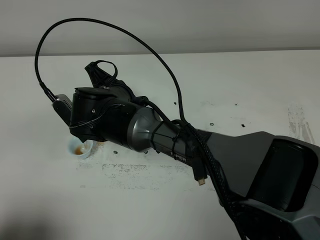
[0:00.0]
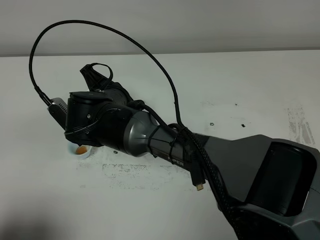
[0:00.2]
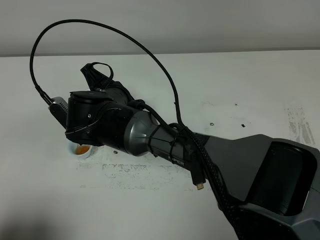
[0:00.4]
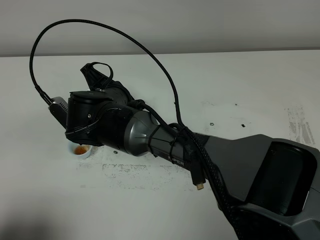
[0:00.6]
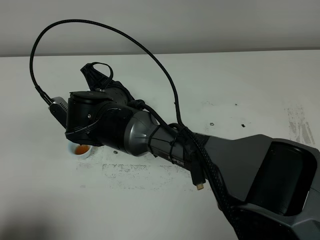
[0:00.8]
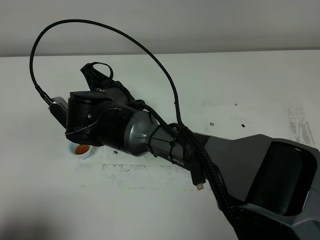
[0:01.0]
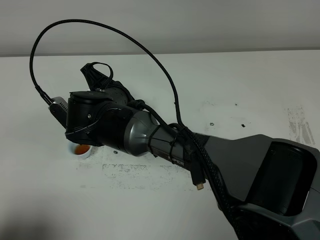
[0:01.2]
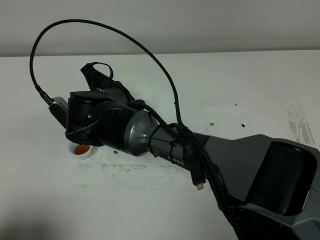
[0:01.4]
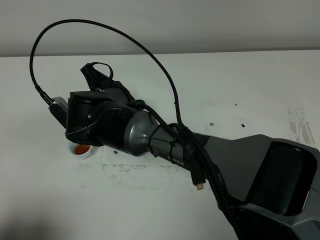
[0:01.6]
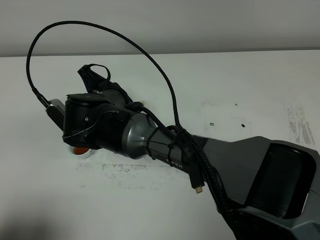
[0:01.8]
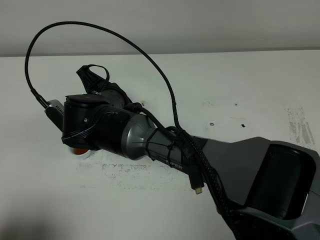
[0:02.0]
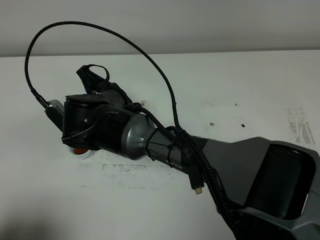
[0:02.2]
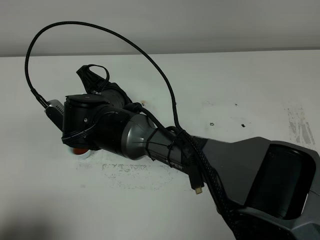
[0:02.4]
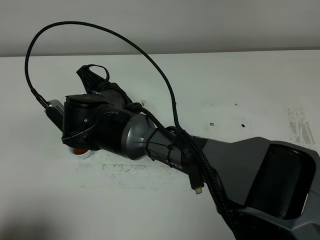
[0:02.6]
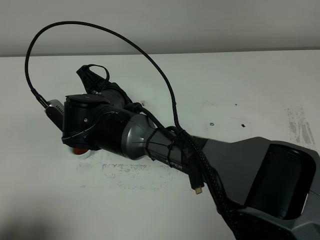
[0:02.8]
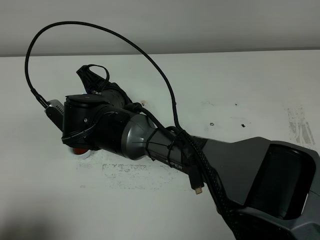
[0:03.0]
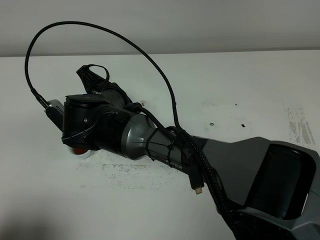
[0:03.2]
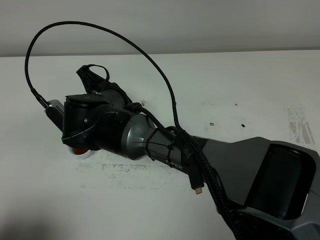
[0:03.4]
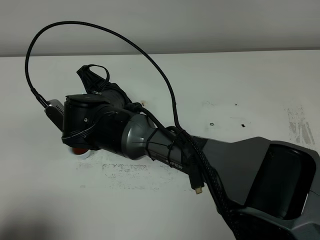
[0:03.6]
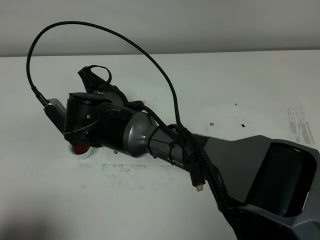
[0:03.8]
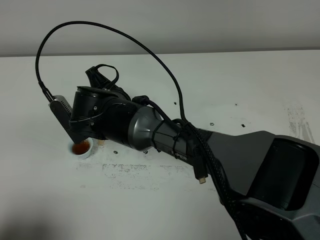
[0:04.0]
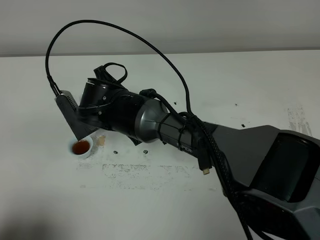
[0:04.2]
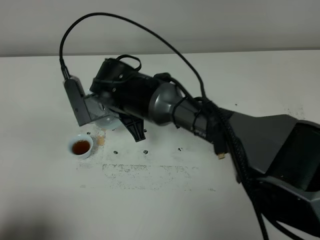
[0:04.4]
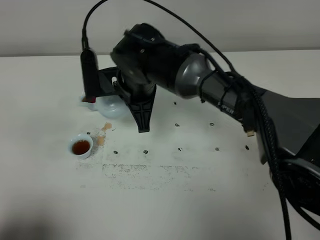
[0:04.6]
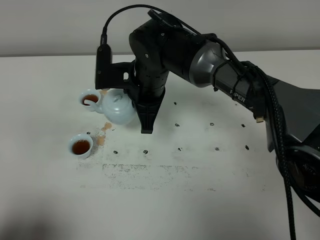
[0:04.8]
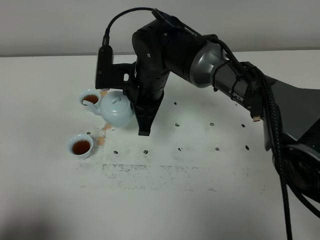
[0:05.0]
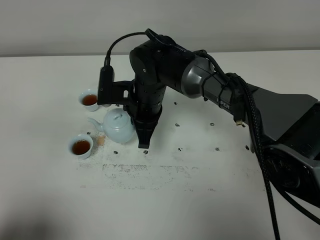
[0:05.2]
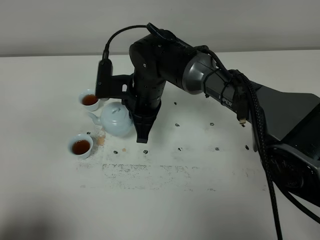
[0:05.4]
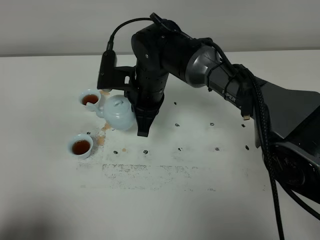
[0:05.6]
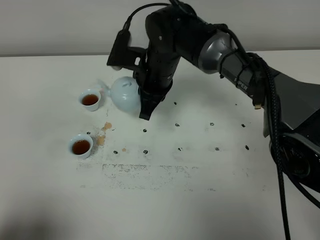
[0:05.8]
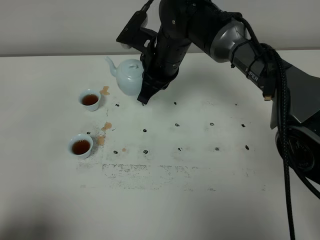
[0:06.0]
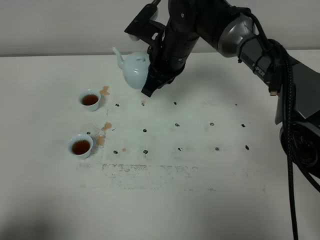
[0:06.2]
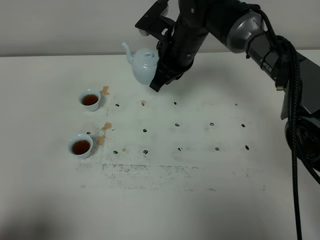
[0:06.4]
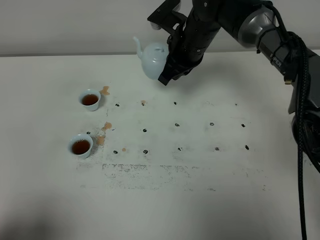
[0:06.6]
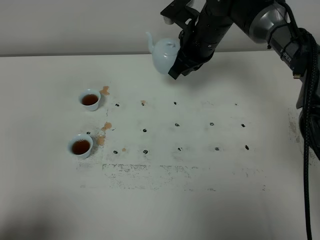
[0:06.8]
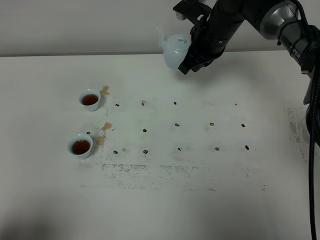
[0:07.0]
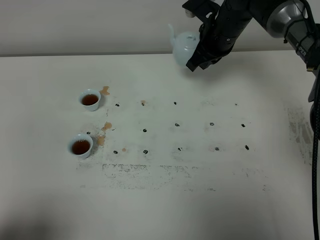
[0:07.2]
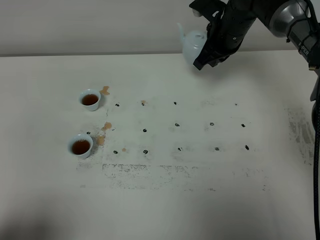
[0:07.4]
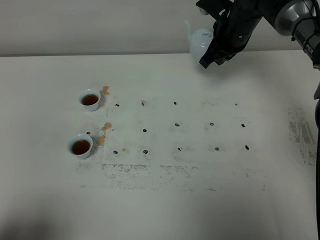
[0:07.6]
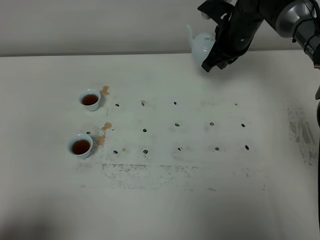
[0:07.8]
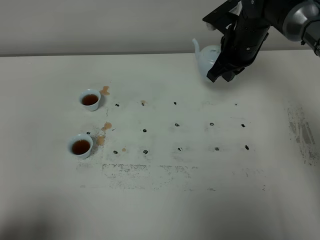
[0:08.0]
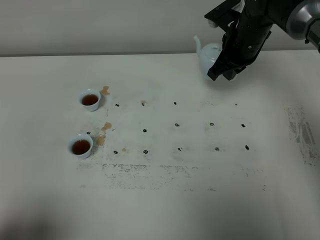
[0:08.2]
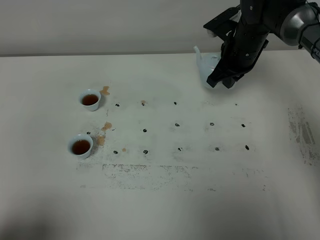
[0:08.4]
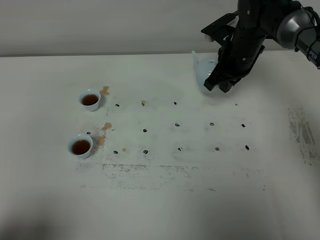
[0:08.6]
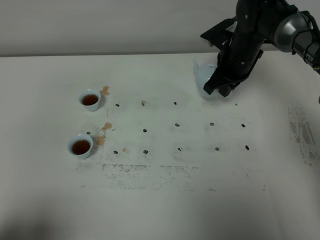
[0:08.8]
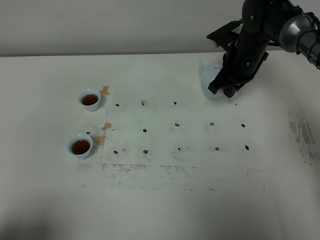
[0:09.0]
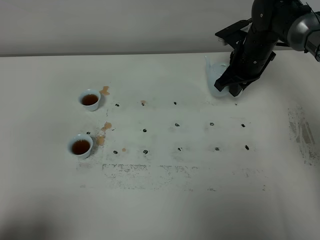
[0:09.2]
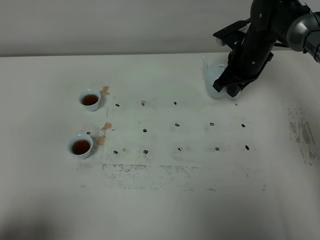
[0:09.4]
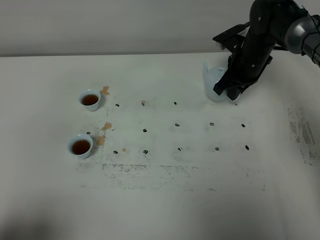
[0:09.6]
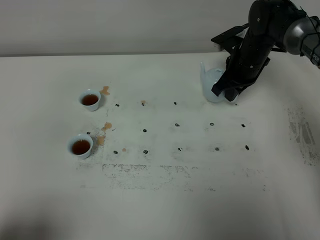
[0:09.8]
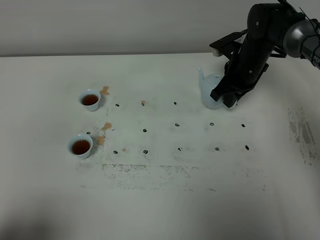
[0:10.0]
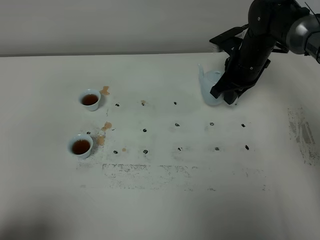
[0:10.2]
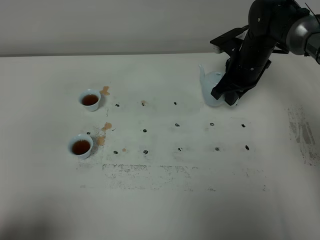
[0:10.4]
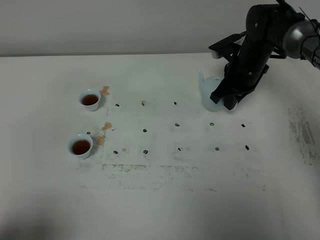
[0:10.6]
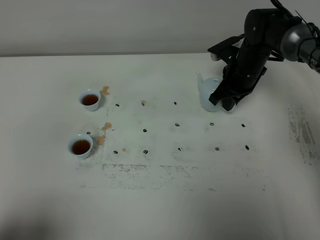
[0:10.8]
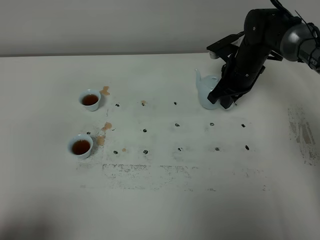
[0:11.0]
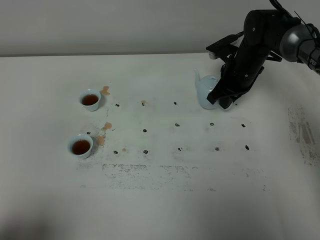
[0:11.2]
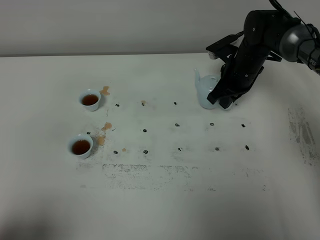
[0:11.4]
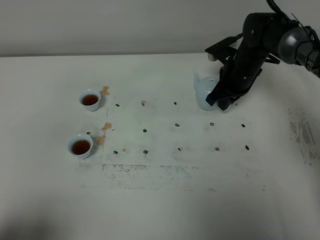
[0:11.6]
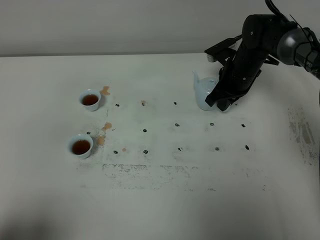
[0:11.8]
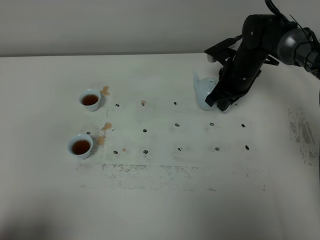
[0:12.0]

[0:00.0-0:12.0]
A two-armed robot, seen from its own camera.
Task of the whole recording: grasp the blue porcelain teapot and pour the tea into the two blue porcelain teacups one by one, put the blue porcelain teapot back in its original place.
Step, 0.0 to 4.6 s: Pour tea into the teacup with the right gripper.
0.0 to 3.0 s: Both grippers stay about where they are.
4.4 to 6.0 s: The right gripper goes roughly 10 cm to the right and forward.
6.0 to 7.6 s: The right gripper shifts about 15 cm to the right and forward.
7.6 to 9.0 s: The right gripper goes about 5 cm downward.
9.0 to 12.0 s: The grippers move only a little.

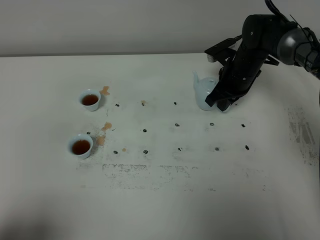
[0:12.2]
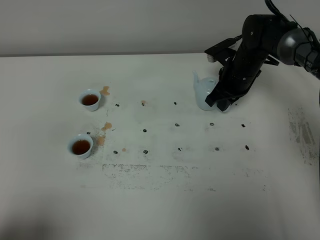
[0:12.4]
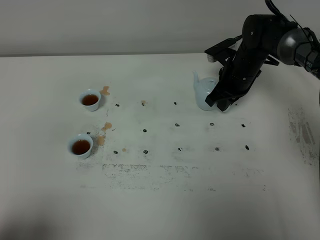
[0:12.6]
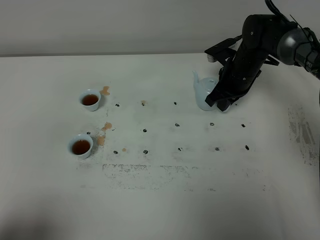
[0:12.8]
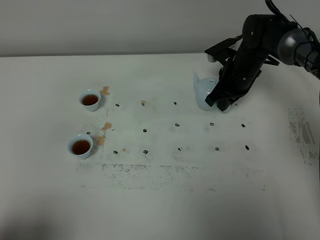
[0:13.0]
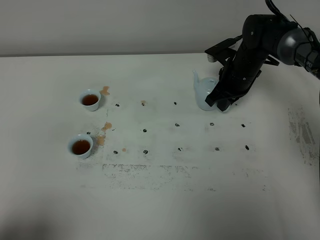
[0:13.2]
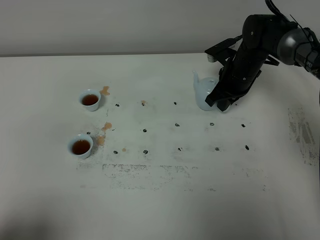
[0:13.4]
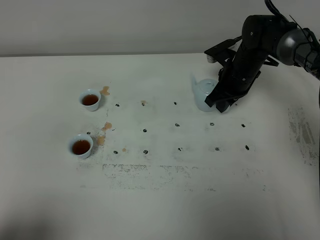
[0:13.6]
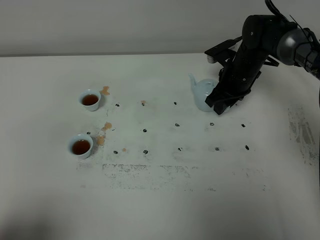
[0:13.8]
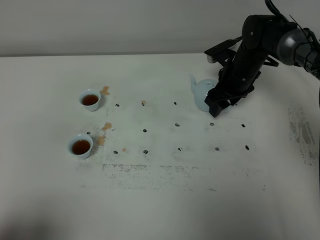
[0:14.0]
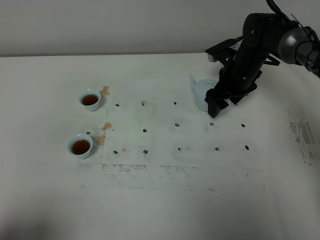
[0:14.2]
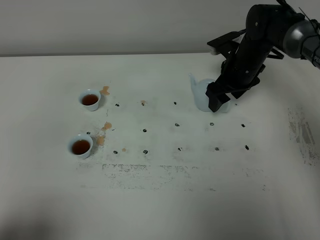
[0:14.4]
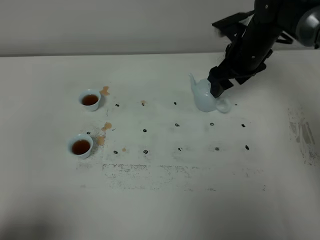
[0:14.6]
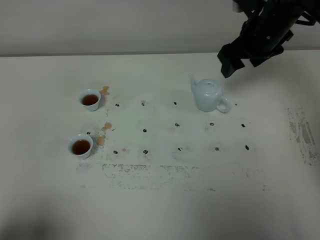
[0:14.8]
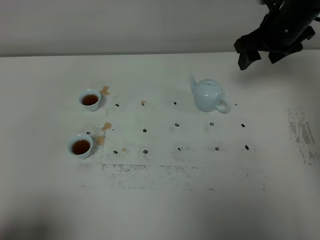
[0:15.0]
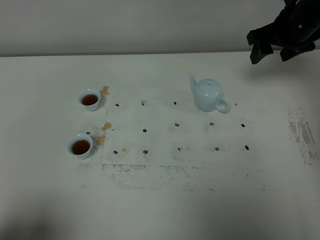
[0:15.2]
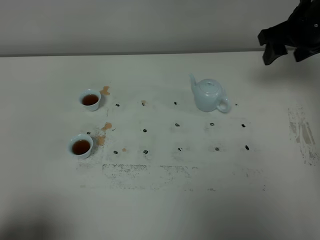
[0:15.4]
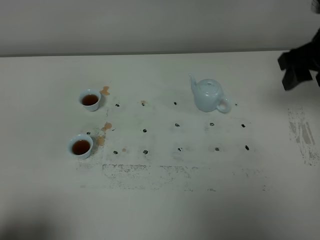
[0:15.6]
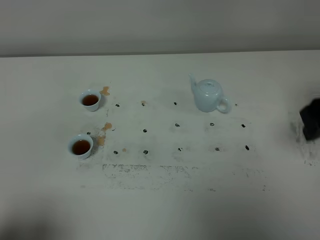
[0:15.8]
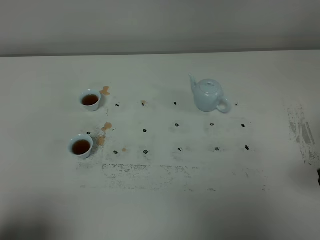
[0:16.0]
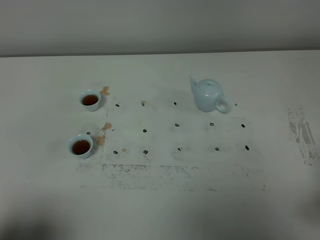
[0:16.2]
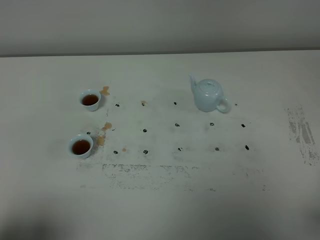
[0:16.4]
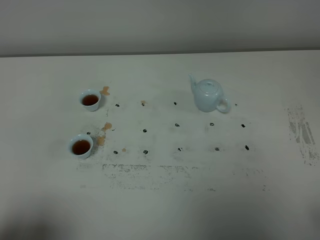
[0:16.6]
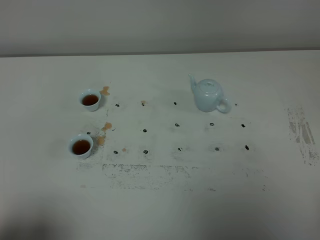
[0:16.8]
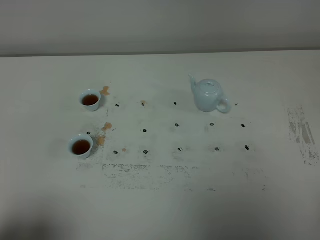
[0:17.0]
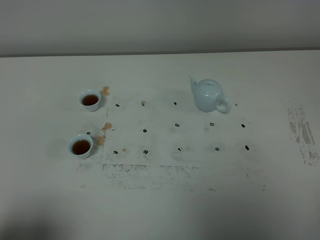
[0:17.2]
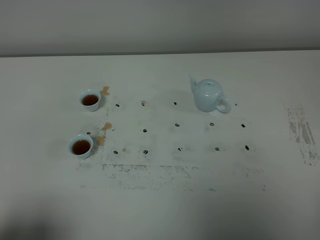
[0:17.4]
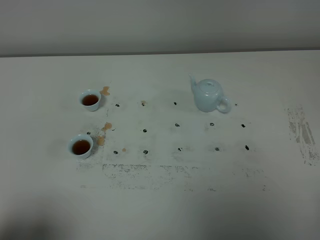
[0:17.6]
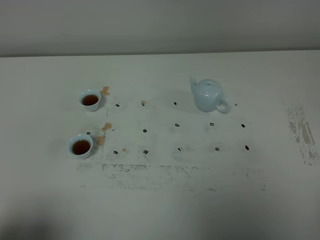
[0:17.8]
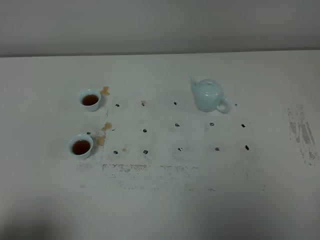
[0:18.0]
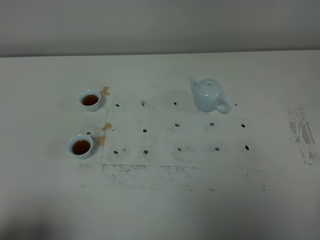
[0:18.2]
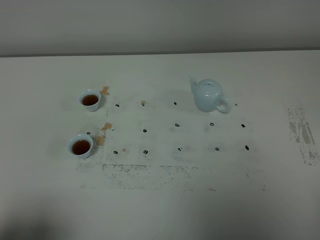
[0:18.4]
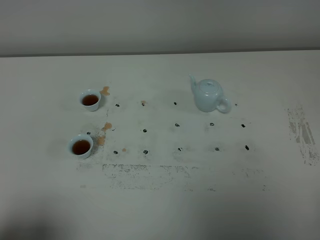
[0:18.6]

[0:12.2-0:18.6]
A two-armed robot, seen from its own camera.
Task of the whole recording: grasp the blue porcelain teapot and pour the tea into the two blue porcelain teacups one by one, put the blue porcelain teapot back in its original place.
13.8 to 15.4 s: The right gripper travels upward and to the right by approximately 20 cm, and opens up.
15.4 to 17.0 s: The right gripper travels backward by approximately 40 cm.
17.0 to 18.6 s: The two grippers keep their place.

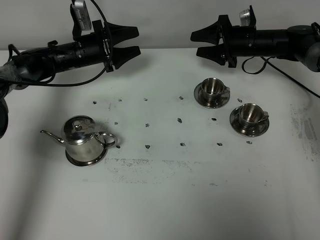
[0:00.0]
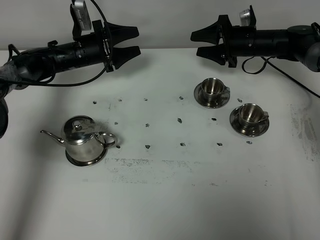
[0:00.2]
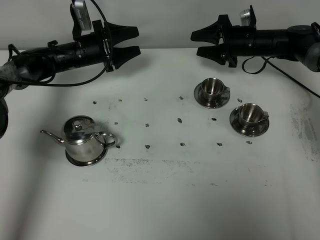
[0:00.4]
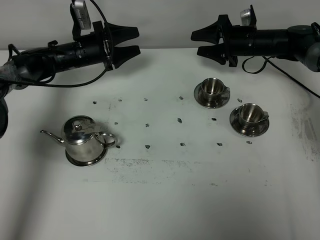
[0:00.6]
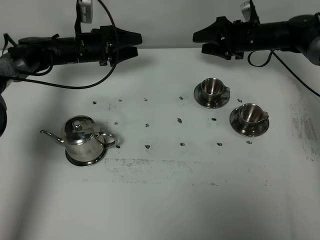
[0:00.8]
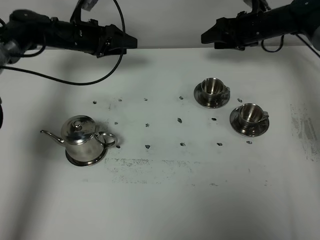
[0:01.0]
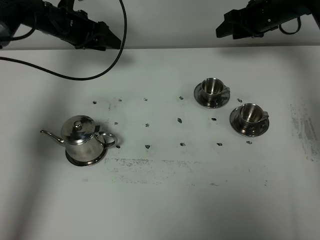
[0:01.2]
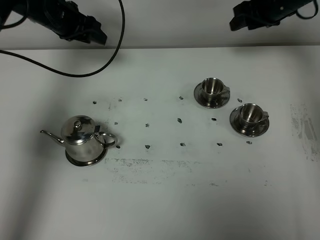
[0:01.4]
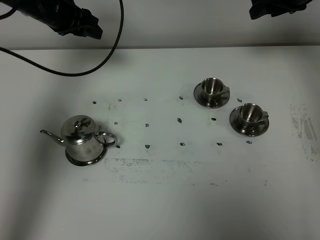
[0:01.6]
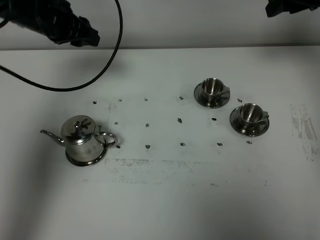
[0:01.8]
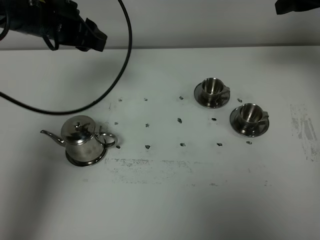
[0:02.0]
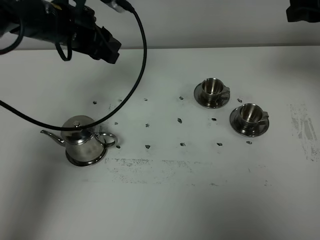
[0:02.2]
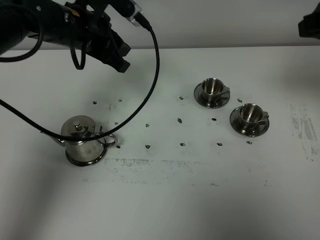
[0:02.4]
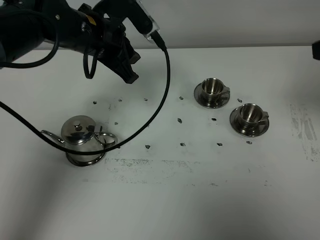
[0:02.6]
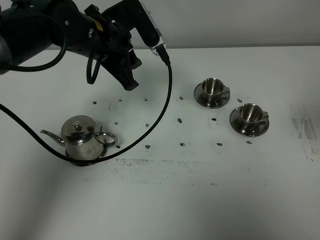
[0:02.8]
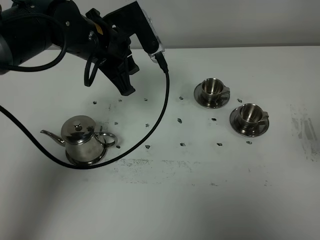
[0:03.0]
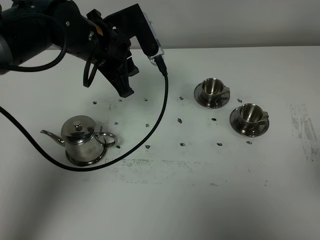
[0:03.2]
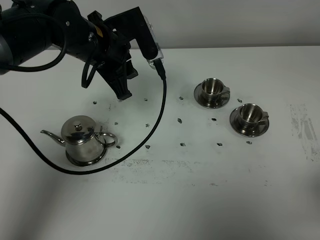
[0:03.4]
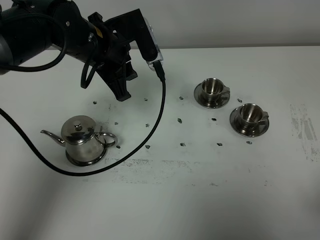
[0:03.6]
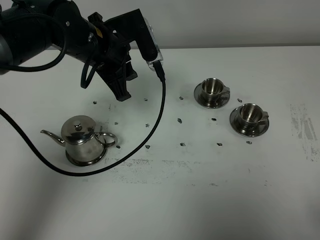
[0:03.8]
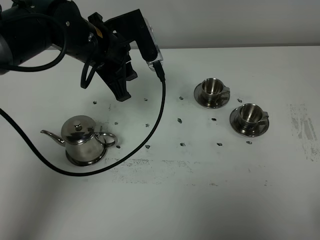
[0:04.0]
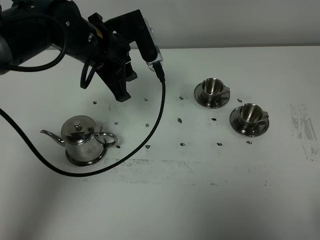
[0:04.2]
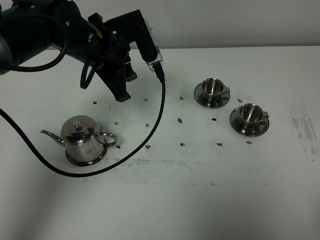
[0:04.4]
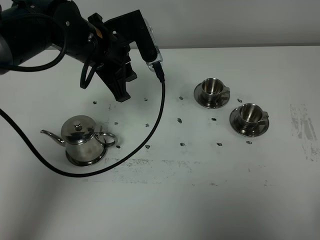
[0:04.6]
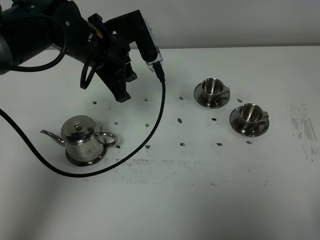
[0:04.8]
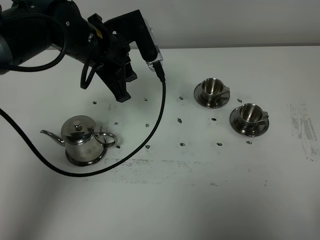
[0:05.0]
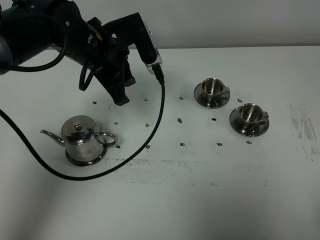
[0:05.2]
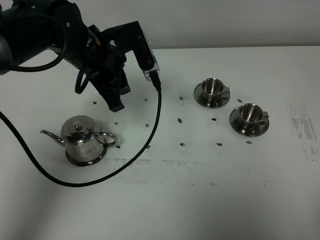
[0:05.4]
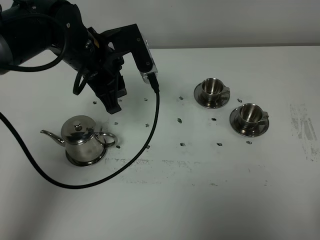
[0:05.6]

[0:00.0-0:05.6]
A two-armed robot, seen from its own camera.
Task of the whole recording: grasp the stainless steel teapot and pour the tea into the two stainless steel teacups one by one, put the stainless steel teapot back in its original place.
0.0 to 1.4 s: The two grippers go roughly 15 cm upward.
1.4 to 2.8 s: The right gripper shifts about 35 cm backward; the left gripper shifts roughly 20 cm backward and to the right.
2.8 to 4.2 s: The right gripper heads backward and downward, covering approximately 20 cm, and closes its fingers.
4.2 to 5.6 s: There are only small adjustments of the grippers.
